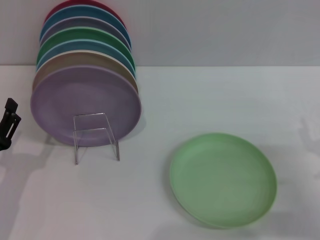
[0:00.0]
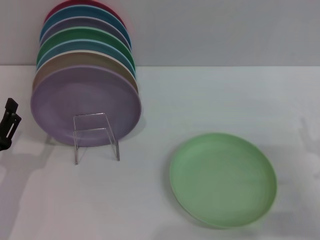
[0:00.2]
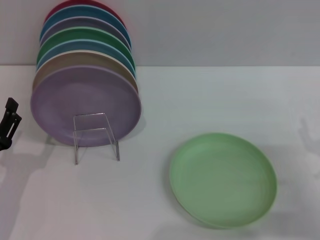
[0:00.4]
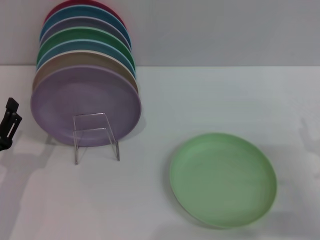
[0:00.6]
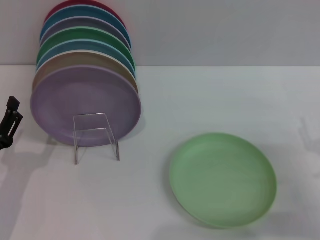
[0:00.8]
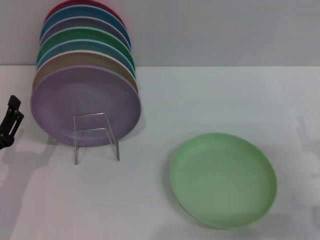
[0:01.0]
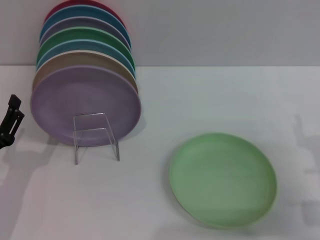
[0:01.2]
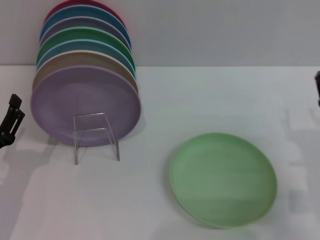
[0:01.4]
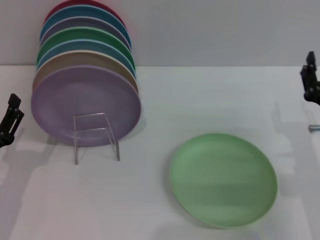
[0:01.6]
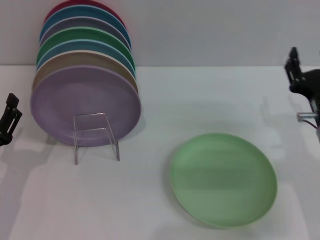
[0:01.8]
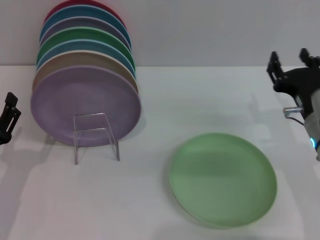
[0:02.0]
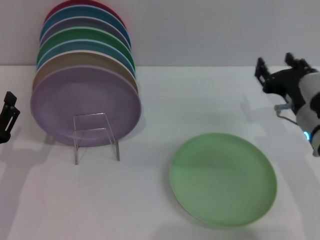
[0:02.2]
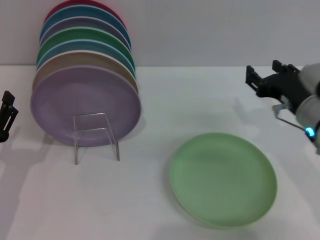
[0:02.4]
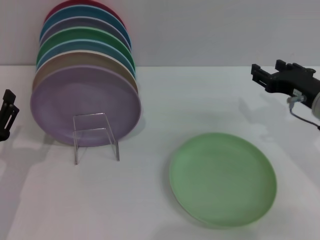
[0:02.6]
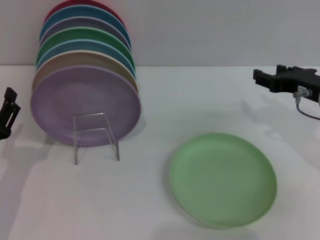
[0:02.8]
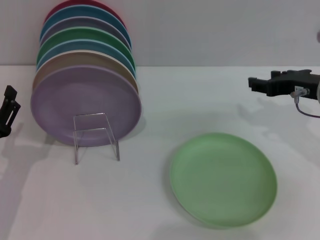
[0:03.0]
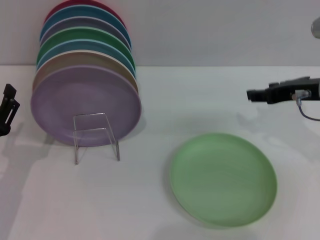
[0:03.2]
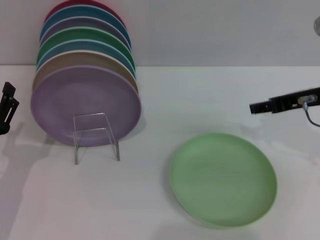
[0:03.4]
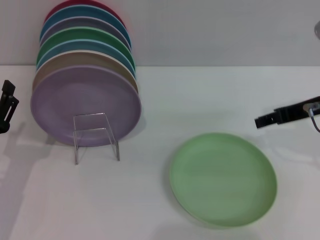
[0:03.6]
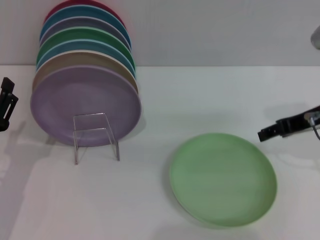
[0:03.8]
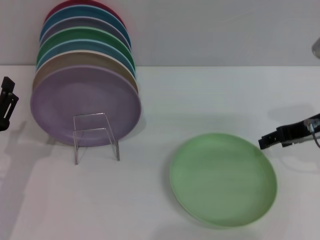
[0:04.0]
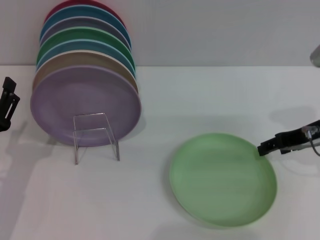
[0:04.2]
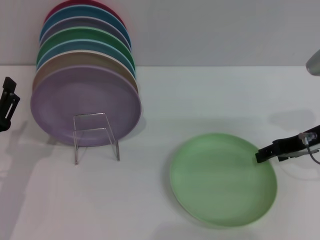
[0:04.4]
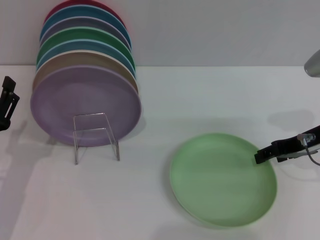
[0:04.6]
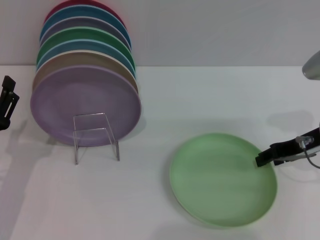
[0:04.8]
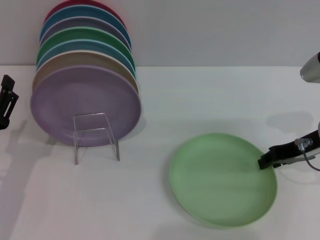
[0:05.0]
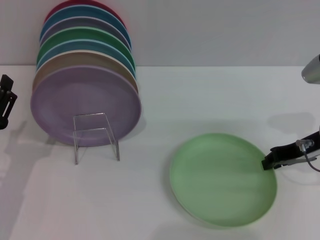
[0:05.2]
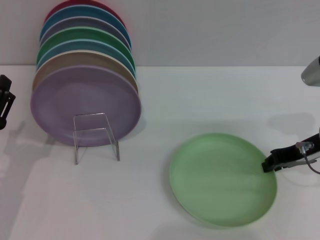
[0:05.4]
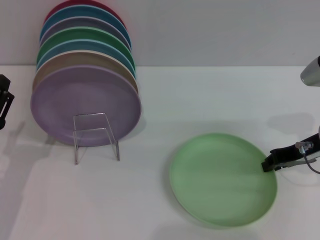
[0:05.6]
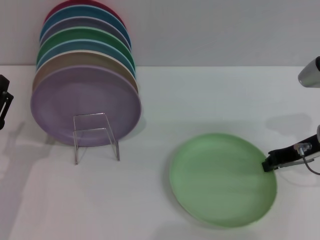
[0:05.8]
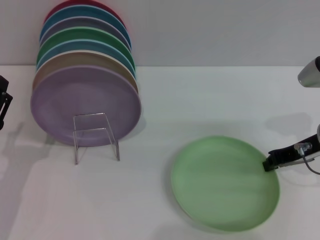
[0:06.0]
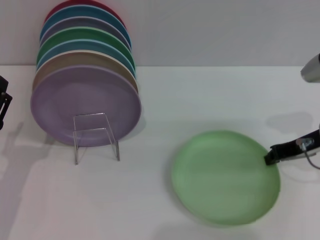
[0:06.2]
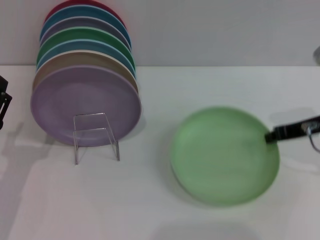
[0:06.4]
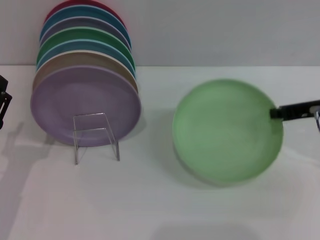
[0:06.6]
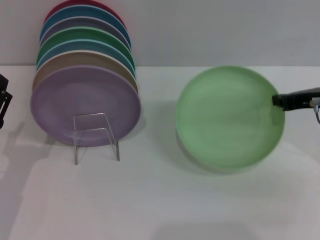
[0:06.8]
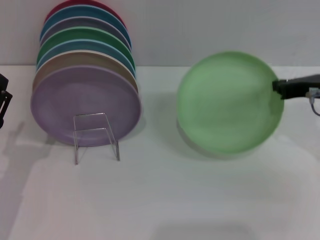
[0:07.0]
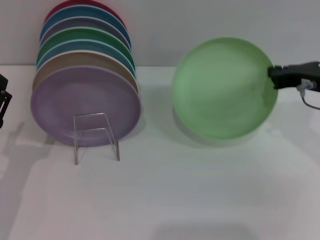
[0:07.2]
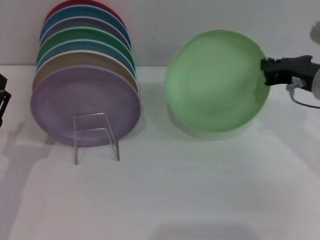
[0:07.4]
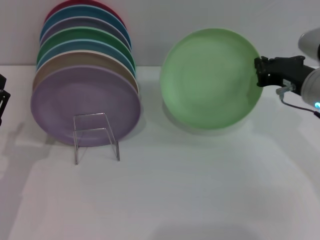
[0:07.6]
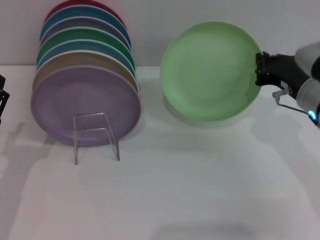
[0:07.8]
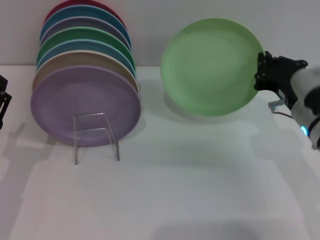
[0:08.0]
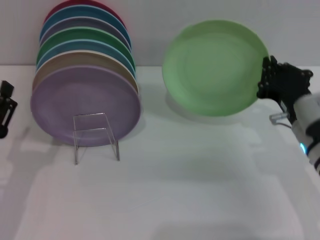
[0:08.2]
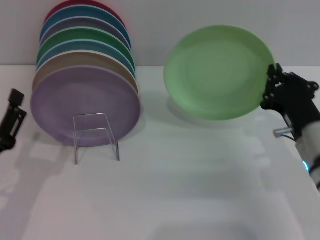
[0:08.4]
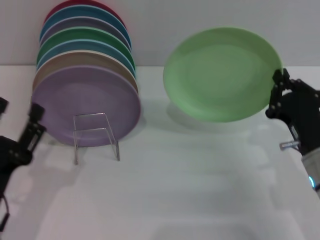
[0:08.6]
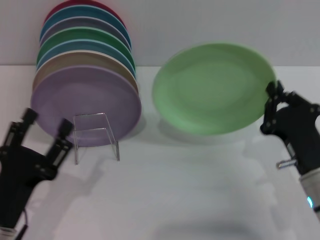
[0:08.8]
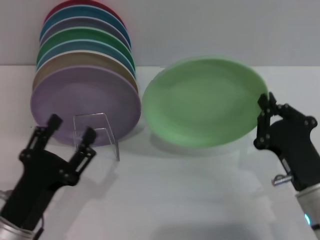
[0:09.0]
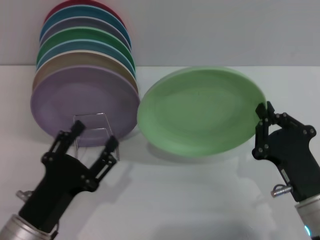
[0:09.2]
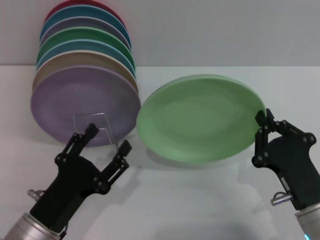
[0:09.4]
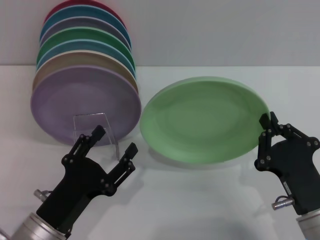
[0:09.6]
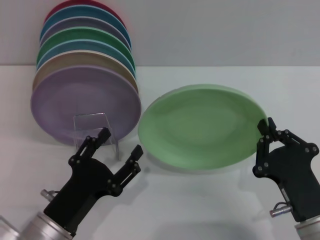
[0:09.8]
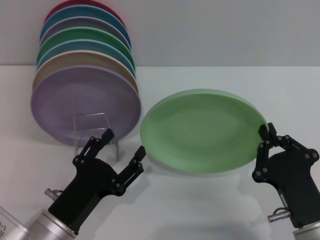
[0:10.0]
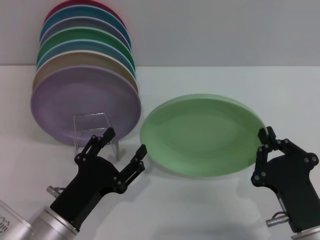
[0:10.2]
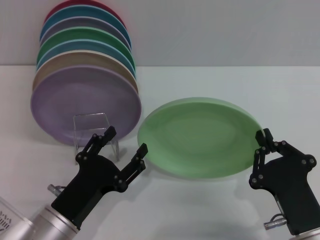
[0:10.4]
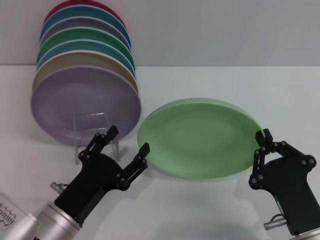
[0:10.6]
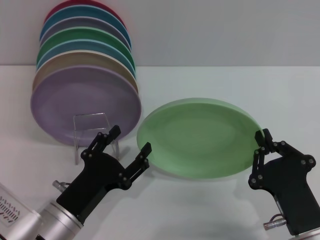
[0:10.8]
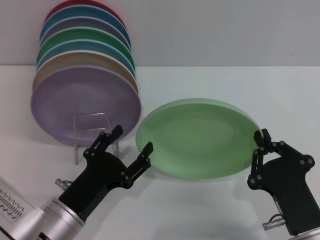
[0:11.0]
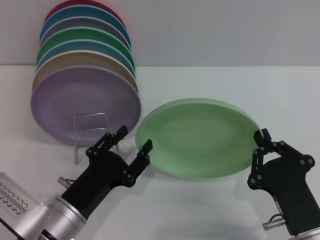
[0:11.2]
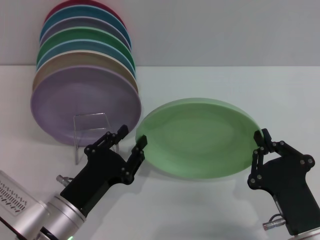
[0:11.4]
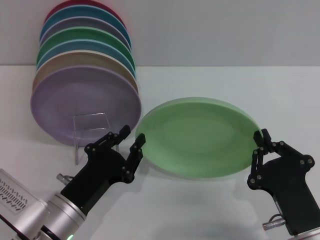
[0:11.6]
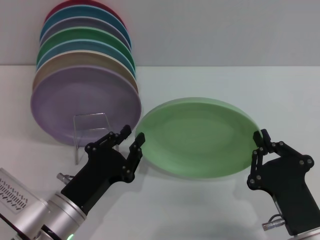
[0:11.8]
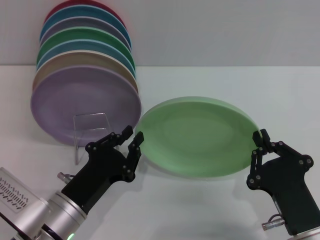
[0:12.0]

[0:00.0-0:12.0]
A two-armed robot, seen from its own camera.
Task of the whole recording: Grip the plate with one hand, pass it to the other, then set it on the shelf.
Step, 0:00.0 to 0:06.6: Pick up the plate with the right gripper.
0:00.0 to 0:01.6: The right gripper is displaced to the left by some 5 cm.
0:01.6 to 0:03.0: The right gripper moves upward and forward, roughly 10 cm.
0:04.4 to 0:06.0: The right gripper closes up.
0:07.6 to 0:09.0: The left gripper shifts roughly 10 cm to the right and backward; the right gripper goes some 15 cm backward and downward.
0:09.0 to 0:10.4: The right gripper moves backward, about 5 cm.
0:10.4 to 0:12.0: The left gripper closes its fingers.

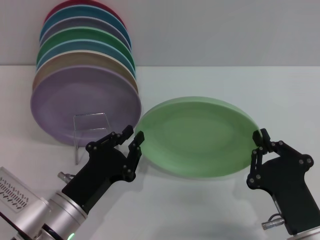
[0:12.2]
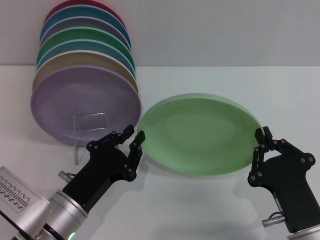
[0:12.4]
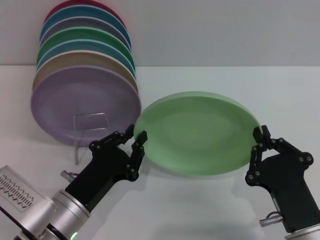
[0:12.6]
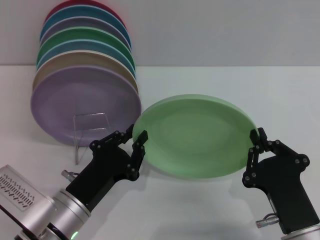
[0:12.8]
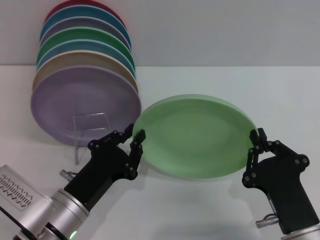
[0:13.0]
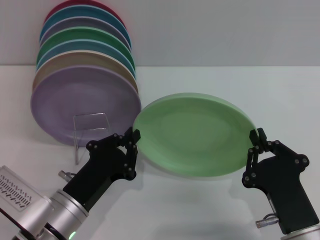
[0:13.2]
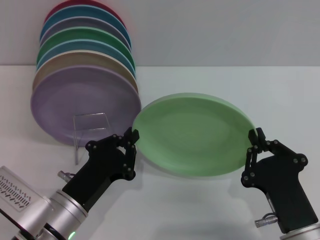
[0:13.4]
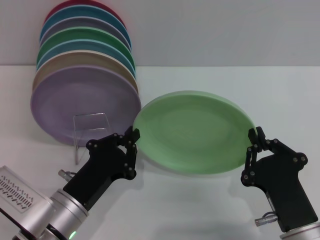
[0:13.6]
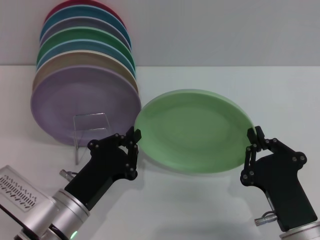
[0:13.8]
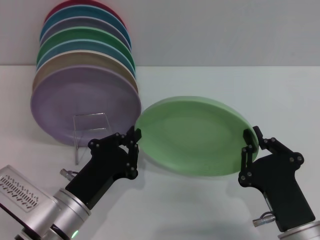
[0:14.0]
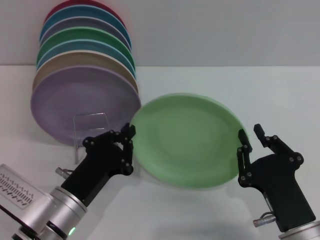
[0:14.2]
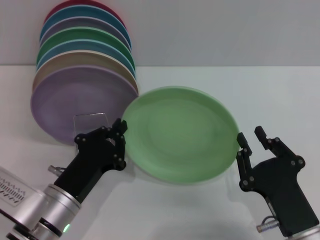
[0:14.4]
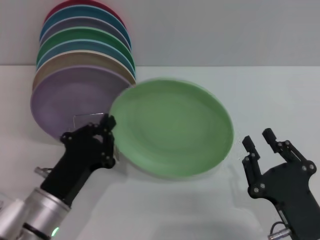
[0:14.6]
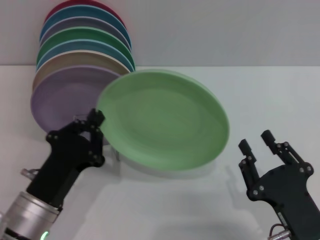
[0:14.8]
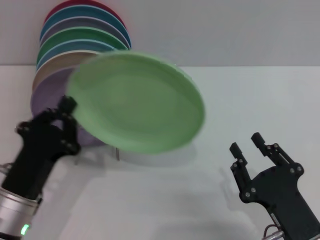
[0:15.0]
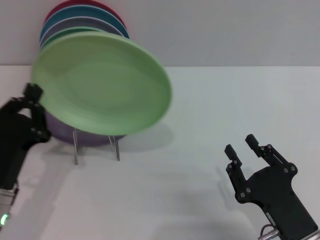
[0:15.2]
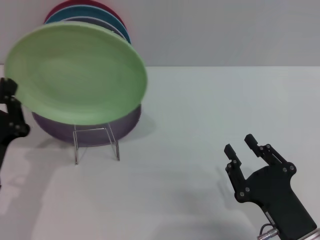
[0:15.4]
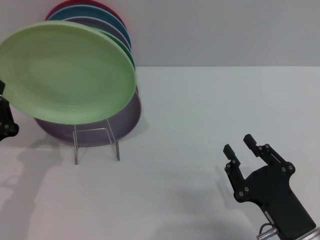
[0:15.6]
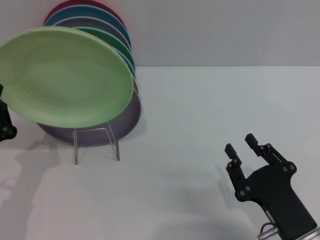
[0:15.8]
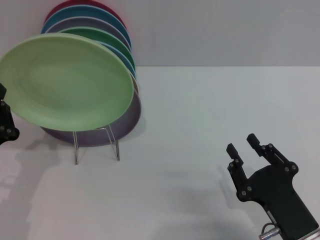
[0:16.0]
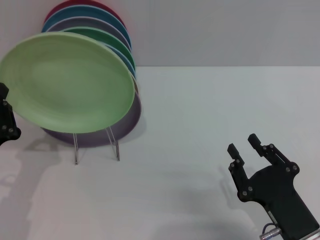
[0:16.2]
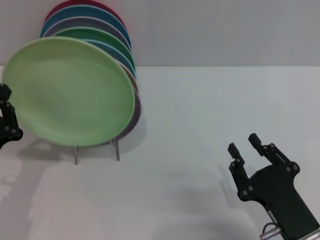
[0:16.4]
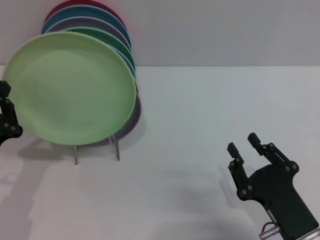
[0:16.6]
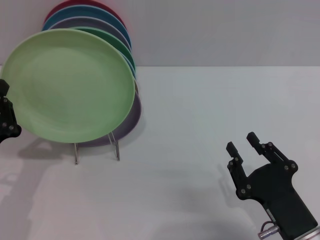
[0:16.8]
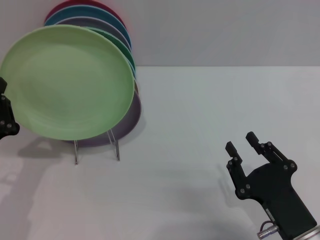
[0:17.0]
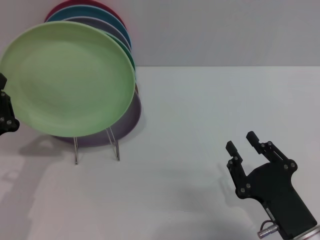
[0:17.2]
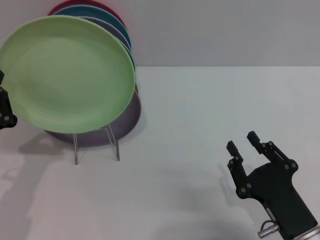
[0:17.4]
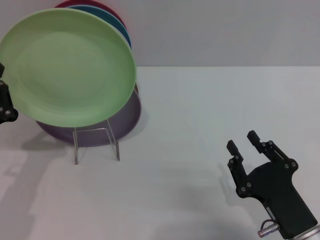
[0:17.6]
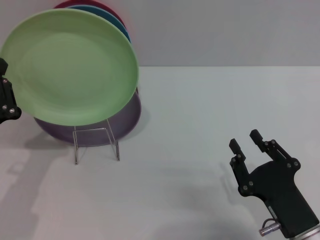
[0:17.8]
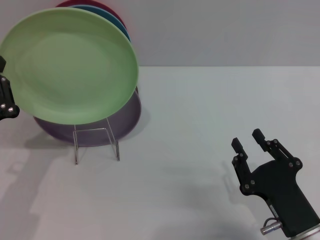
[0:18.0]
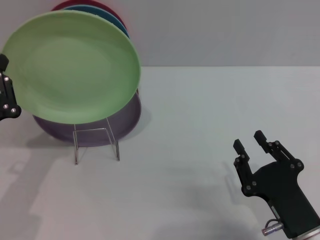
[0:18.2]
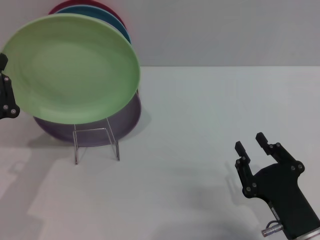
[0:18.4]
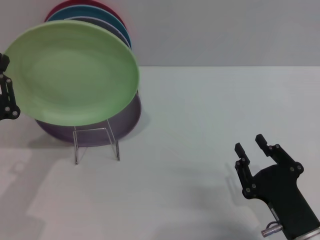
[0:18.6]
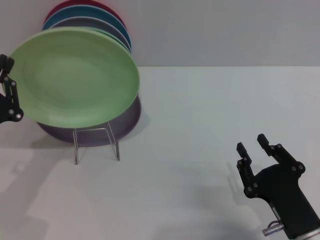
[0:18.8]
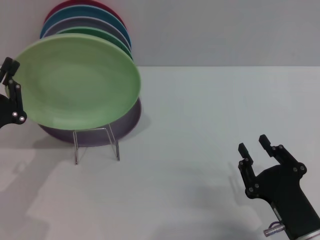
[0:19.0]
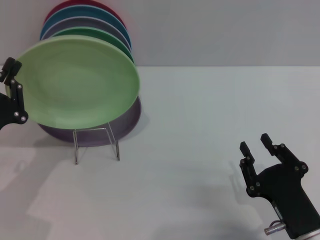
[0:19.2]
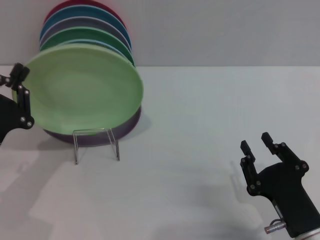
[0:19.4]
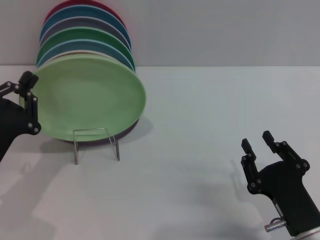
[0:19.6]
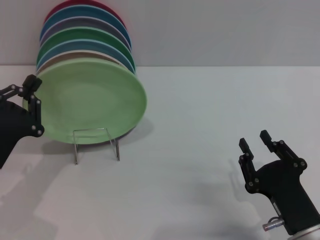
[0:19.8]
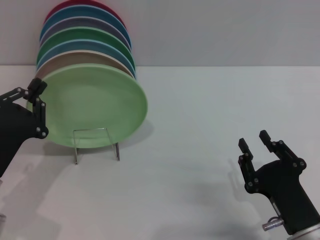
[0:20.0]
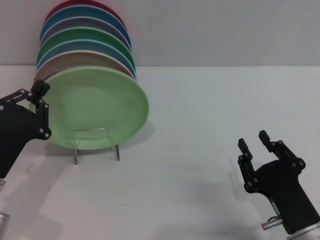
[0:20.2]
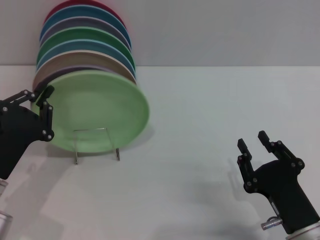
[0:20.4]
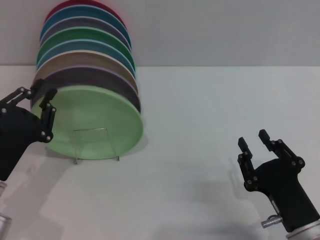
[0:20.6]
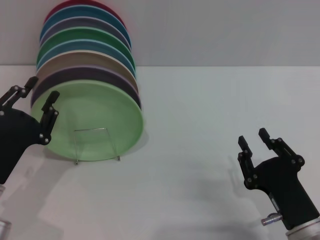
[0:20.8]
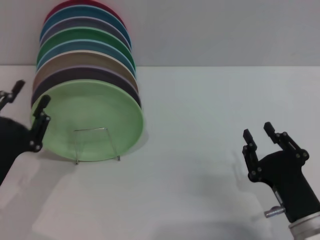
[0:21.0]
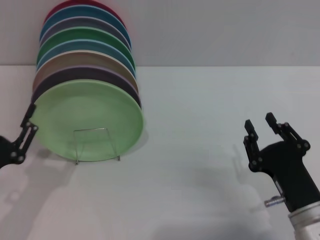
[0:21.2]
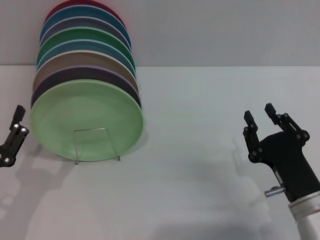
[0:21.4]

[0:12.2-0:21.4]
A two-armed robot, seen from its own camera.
Task of the whole recording: Grip the plate with one hand, pass it to the other, then set it on the shelf.
Step, 0:12.2 to 0:14.2: Pass the plate from the right gripper to the left gripper.
Step, 0:14.6 to 0:20.6: Place the plate on the shelf with the left gripper.
0:12.2 to 0:13.8: Both grippers stay put.
0:13.8 to 0:15.2: The left gripper goes roughly 5 cm to the left, while the right gripper opens.
0:15.2 to 0:16.8: The grippers stay close to where they were, moving slightly.
0:16.8 to 0:18.4: The grippers make only small movements.
0:19.8 to 0:21.4: The left gripper is displaced backward by about 5 cm, and opens up.
